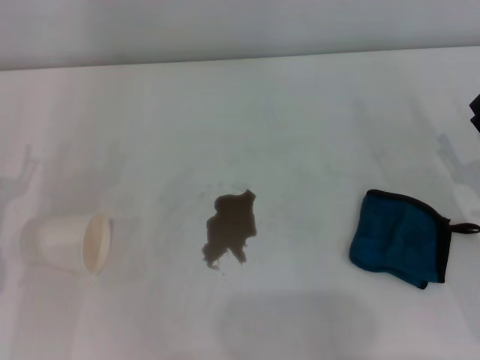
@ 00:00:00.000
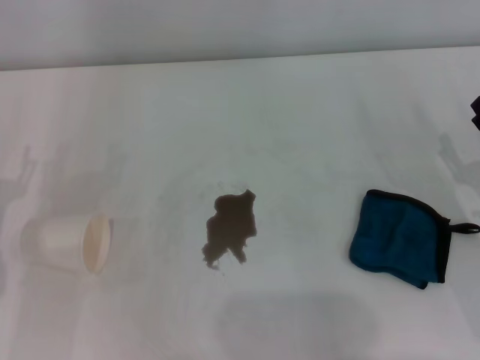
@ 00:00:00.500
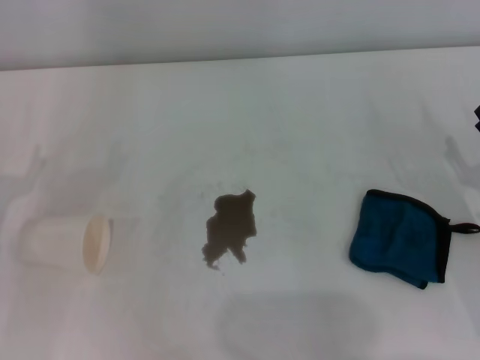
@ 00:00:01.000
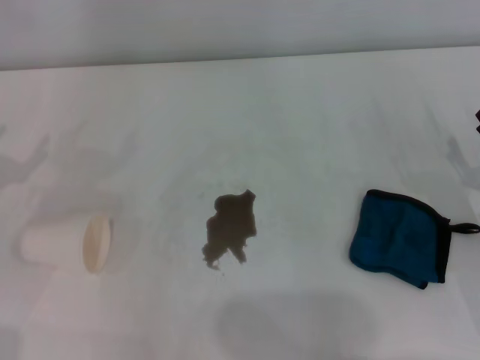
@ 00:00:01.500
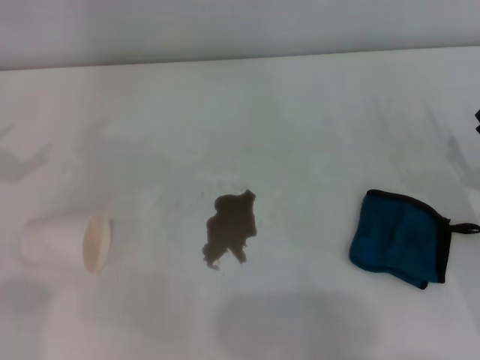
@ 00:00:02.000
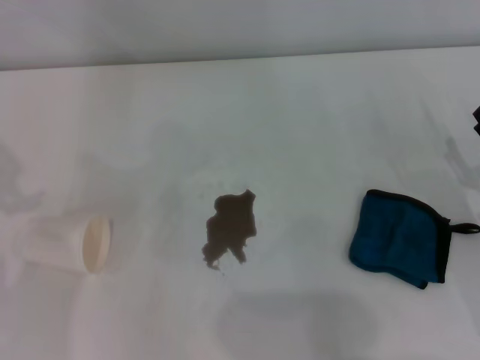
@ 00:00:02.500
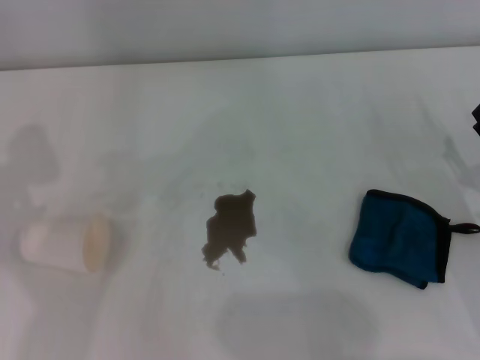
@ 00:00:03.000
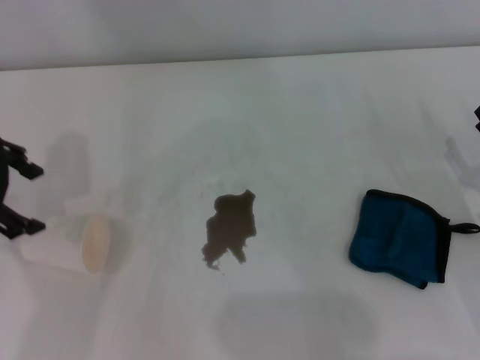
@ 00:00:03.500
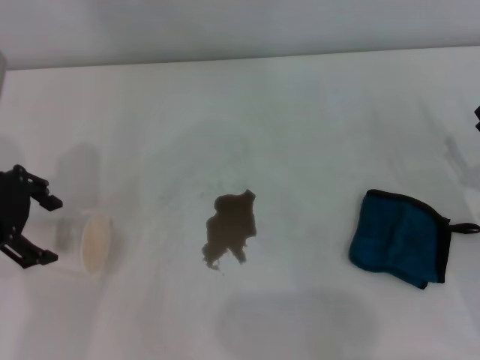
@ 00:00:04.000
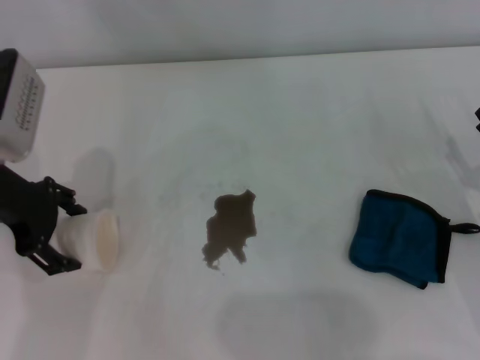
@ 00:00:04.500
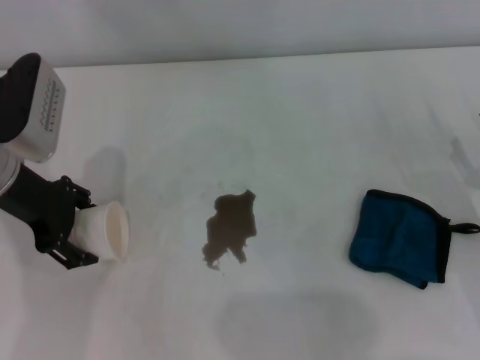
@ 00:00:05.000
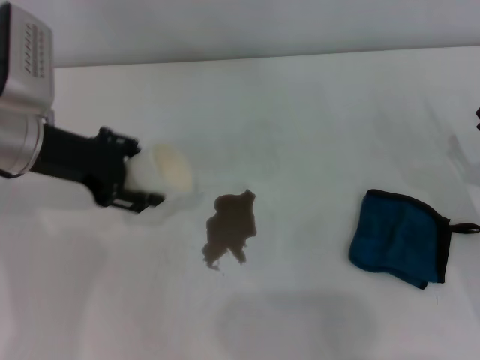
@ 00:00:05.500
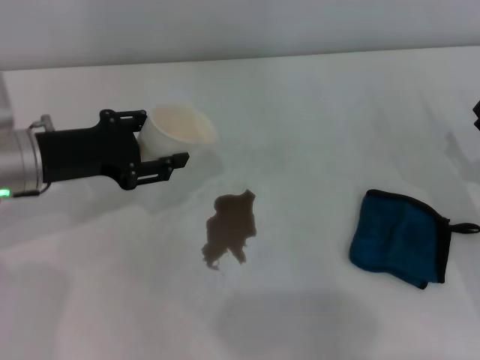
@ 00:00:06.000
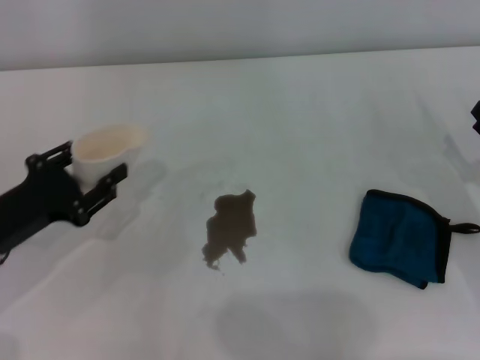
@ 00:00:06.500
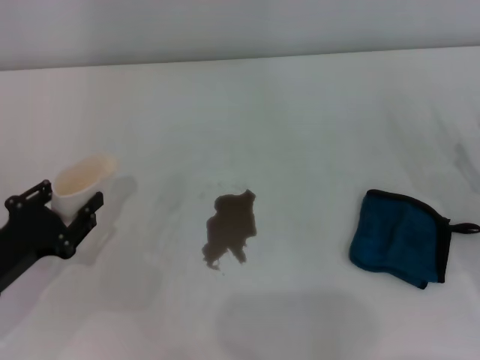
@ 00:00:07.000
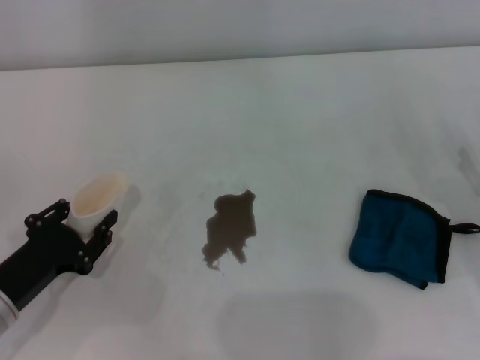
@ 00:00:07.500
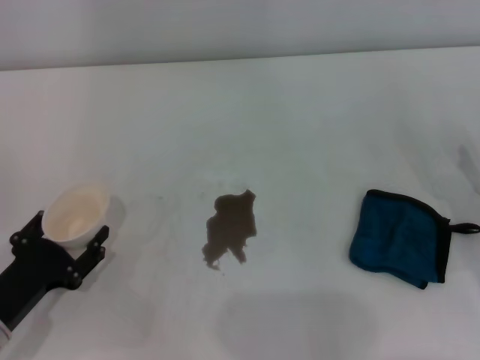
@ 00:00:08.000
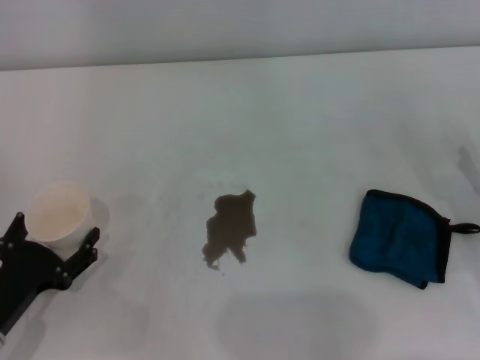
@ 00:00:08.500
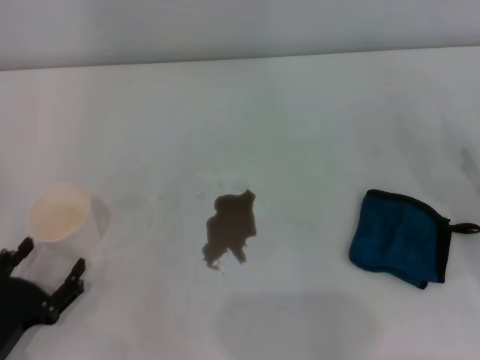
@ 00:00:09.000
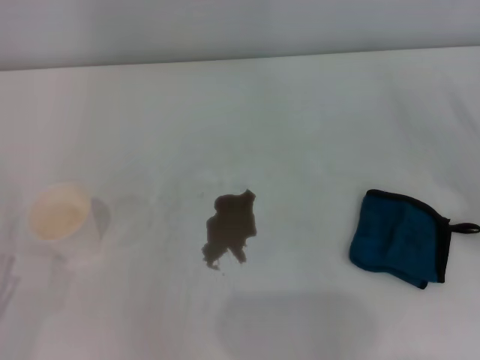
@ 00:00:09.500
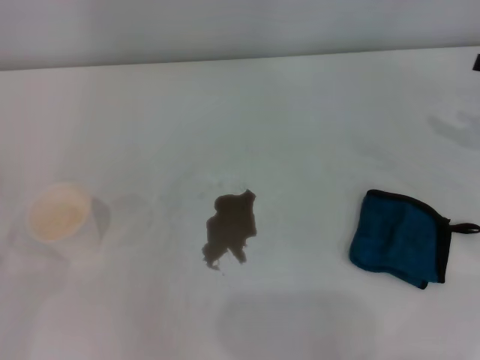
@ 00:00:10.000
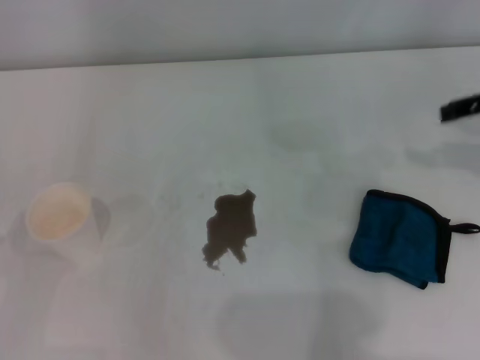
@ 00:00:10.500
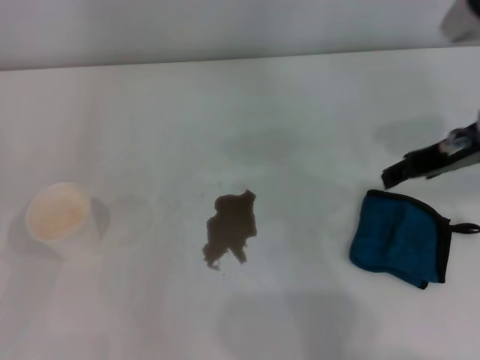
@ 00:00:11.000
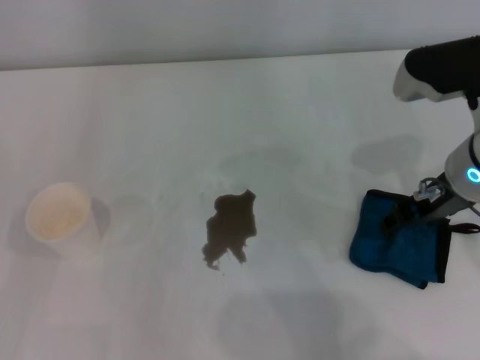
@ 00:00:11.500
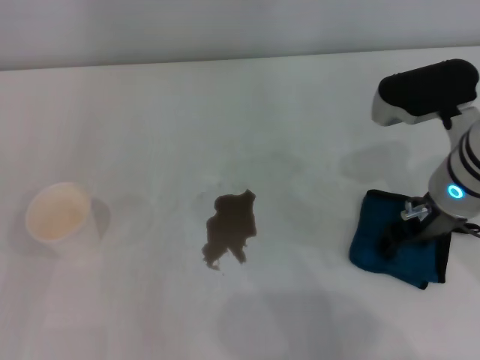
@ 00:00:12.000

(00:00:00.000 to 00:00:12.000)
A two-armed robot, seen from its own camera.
Step, 00:00:00.000 - 00:00:04.500: Grasp the paper cup with the left gripper.
Step, 00:00:05.000 - 00:00:08.000: Stand the paper cup upright with the left gripper.
00:00:02.000 - 00:00:04.000: The left gripper is displaced to the right by roughly 10 cm.
00:00:04.000 - 00:00:06.000: The left gripper is displaced downward by about 5 cm, and closes its fingers.
00:00:06.000 - 00:00:08.000: The left gripper shifts some 20 cm backward and downward.
00:00:08.000 - 00:00:10.000: The left gripper moves backward and to the left, about 10 cm, and opens.
00:00:10.000 - 00:00:12.000: The right gripper heads to the left, covering approximately 20 cm.

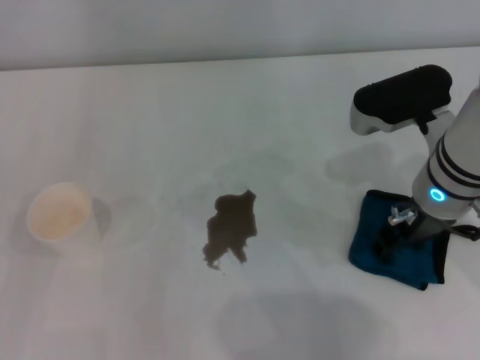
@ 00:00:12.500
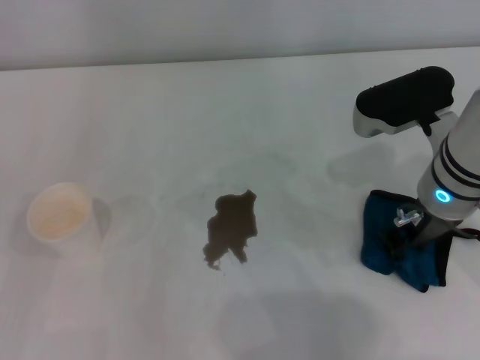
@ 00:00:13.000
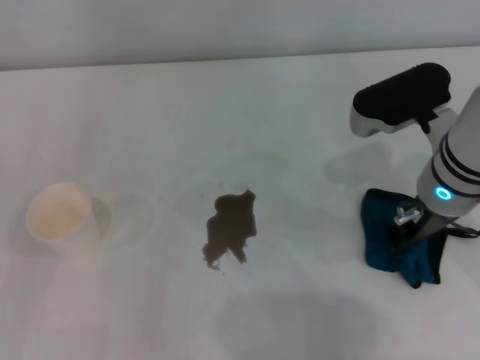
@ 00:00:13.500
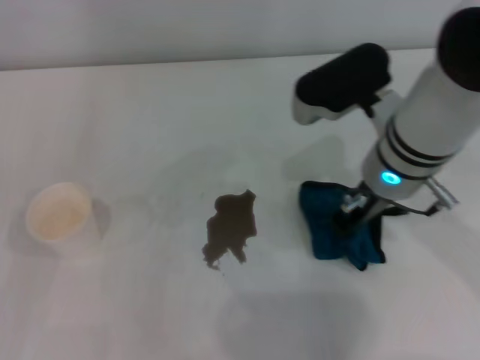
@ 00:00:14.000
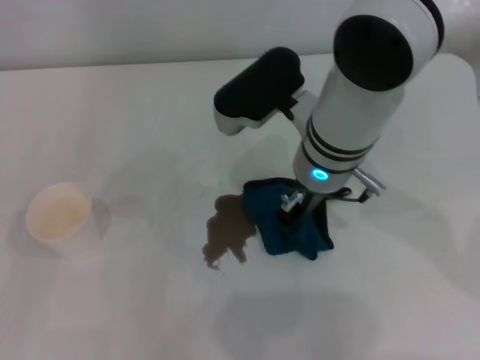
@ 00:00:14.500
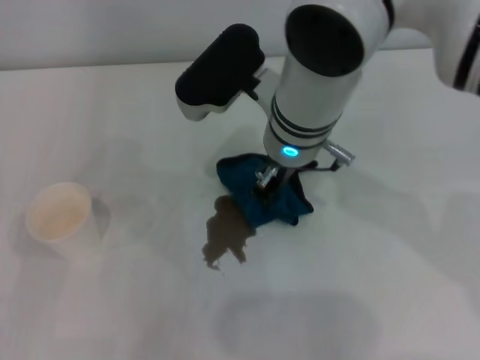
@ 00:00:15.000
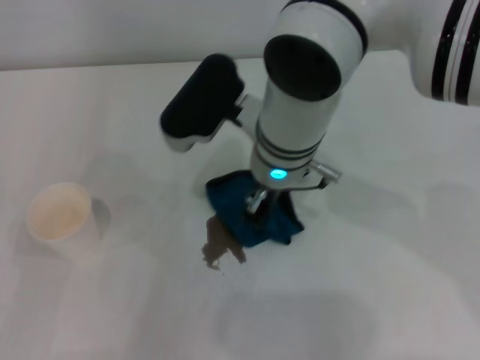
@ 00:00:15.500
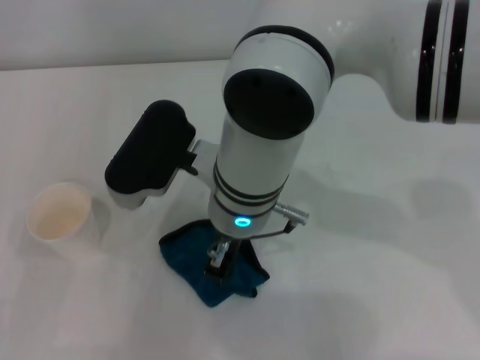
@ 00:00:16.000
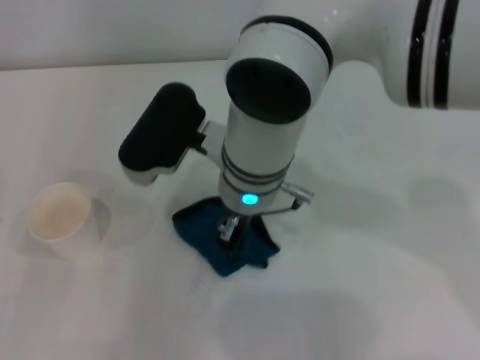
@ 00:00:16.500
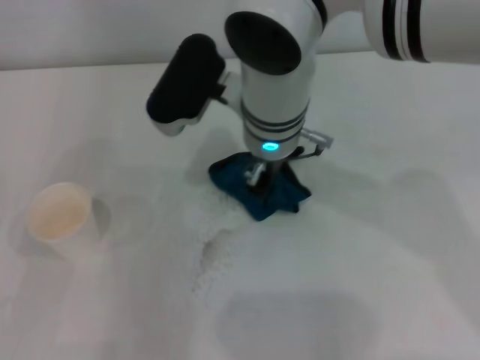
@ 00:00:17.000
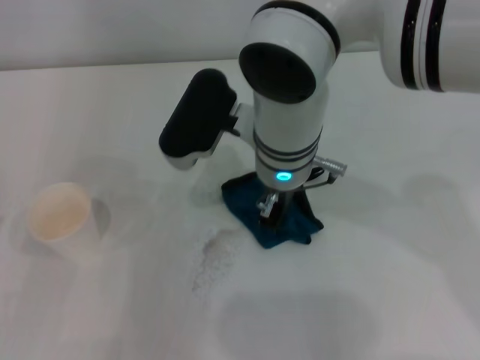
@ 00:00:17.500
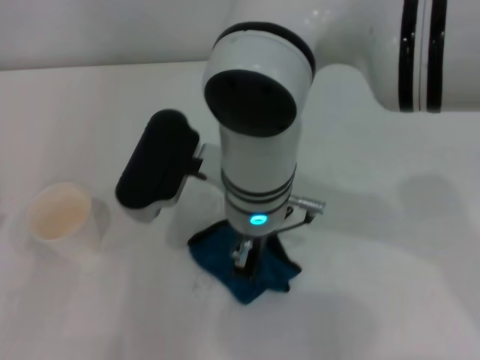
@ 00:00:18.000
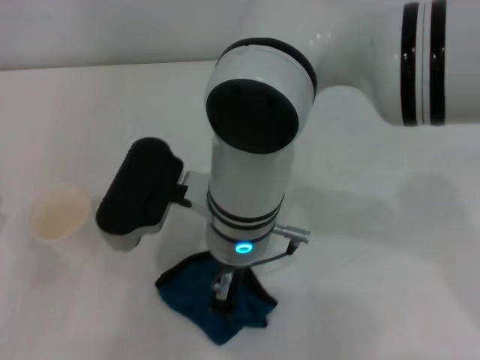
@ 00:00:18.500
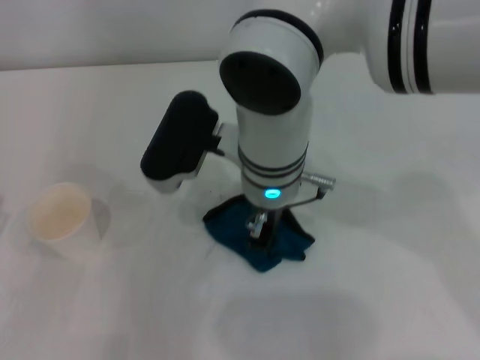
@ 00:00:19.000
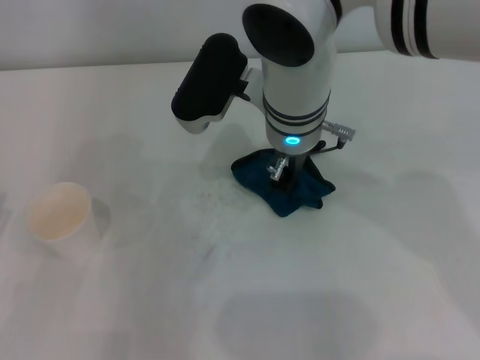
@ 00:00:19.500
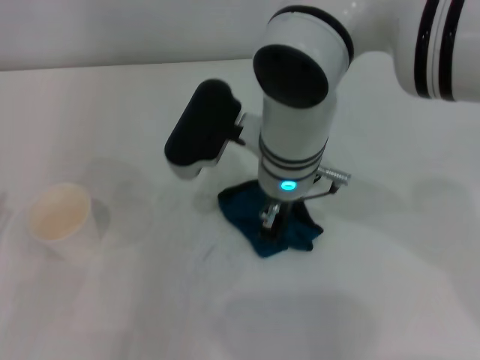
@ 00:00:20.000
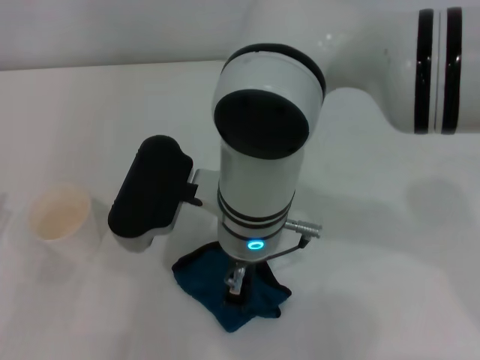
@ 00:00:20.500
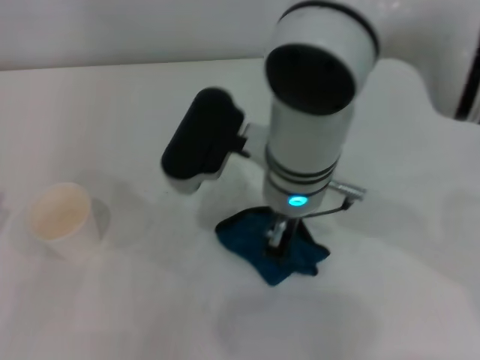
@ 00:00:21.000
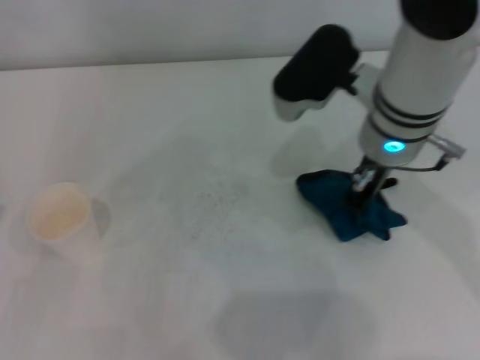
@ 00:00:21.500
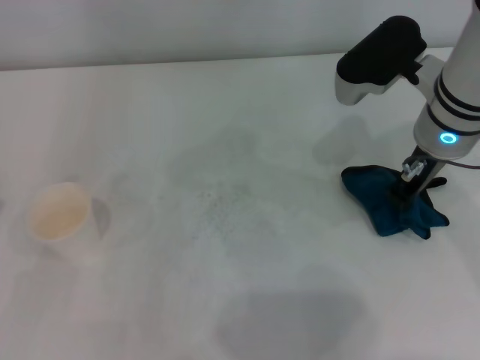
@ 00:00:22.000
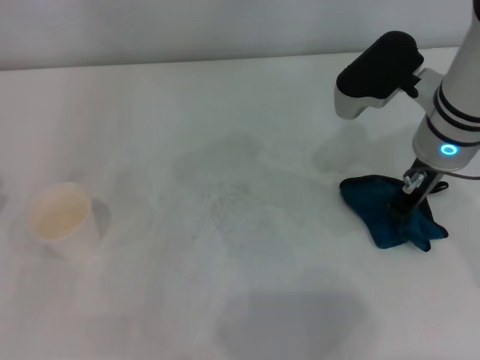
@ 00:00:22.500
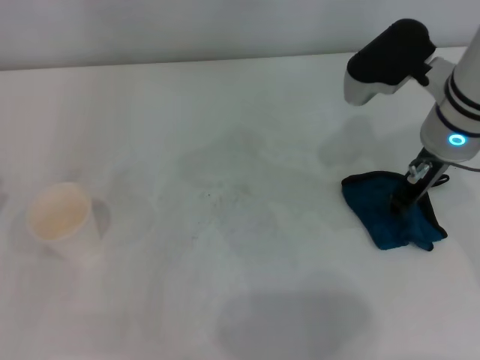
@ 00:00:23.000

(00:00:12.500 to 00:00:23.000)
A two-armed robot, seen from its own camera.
Step, 00:00:13.500 - 00:00:21.000: Wipe the stains off the table with the right gripper.
Step, 00:00:21.500 - 00:00:22.500: Place the rag on the table with the right gripper.
00:00:12.500 - 00:00:14.500: The right gripper travels to the left by some 10 cm, and closes its fingers.
00:00:14.500 - 00:00:16.500: The right gripper goes approximately 5 cm to the left.
00:00:16.500 - 00:00:19.000: The right gripper goes forward and backward, roughly 10 cm each way, reversing 2 times.
00:00:19.000 - 00:00:21.000: The right gripper moves about 5 cm backward and comes back.
00:00:21.000 - 00:00:23.000: The right gripper moves to the right, some 15 cm.

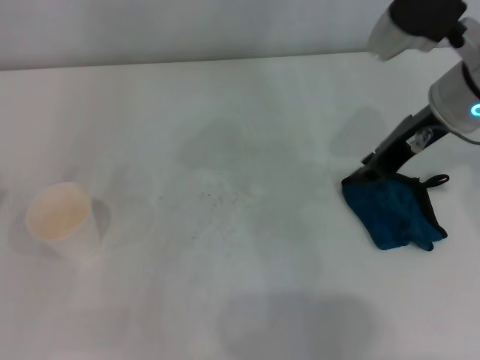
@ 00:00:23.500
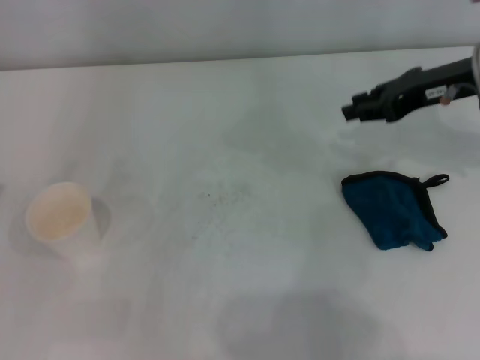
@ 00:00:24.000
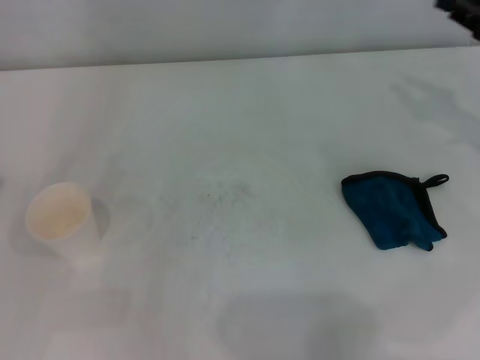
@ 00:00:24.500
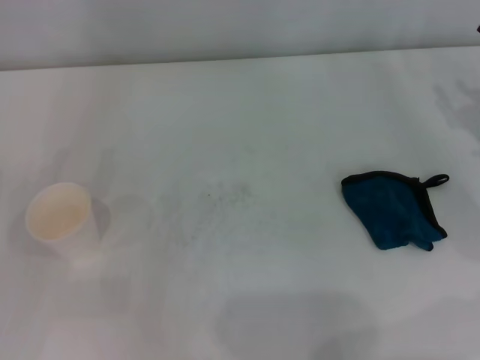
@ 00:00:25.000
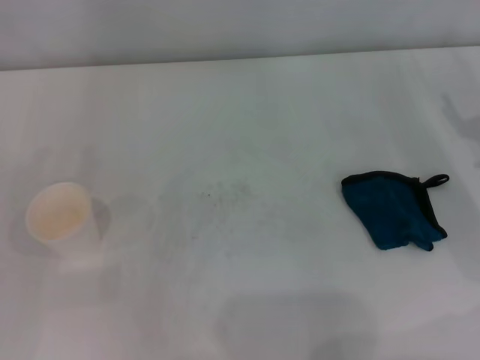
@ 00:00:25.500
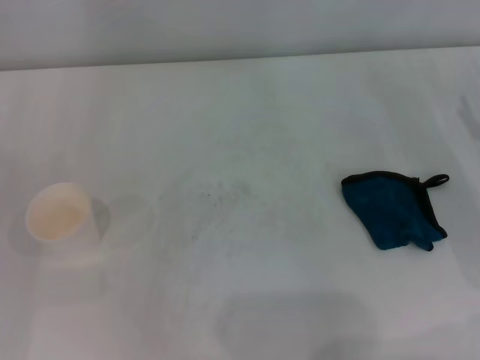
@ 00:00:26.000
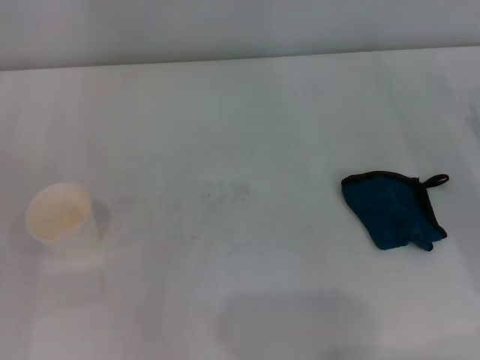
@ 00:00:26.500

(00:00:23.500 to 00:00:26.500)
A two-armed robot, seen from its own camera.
00:00:23.500 - 00:00:25.000: The right gripper is displaced to the right and downward by some 20 cm.
